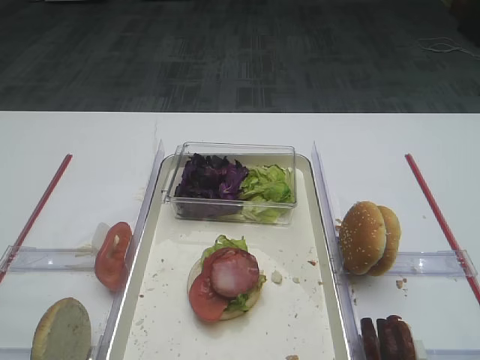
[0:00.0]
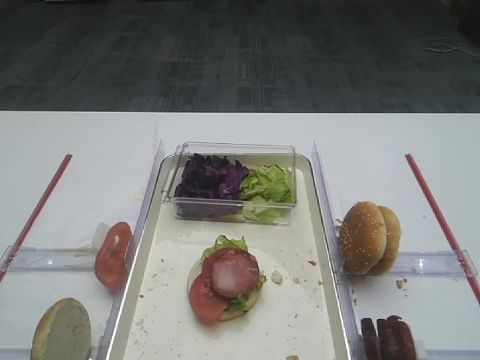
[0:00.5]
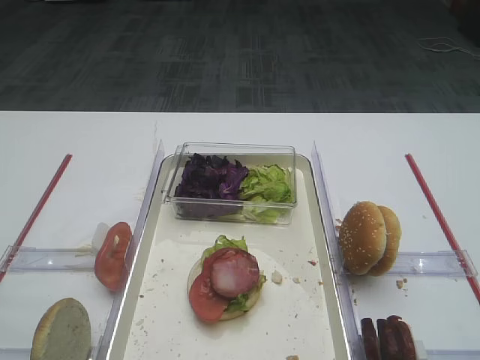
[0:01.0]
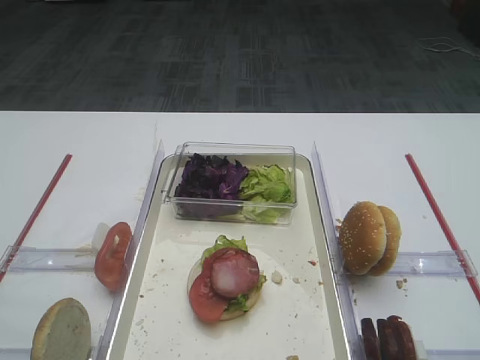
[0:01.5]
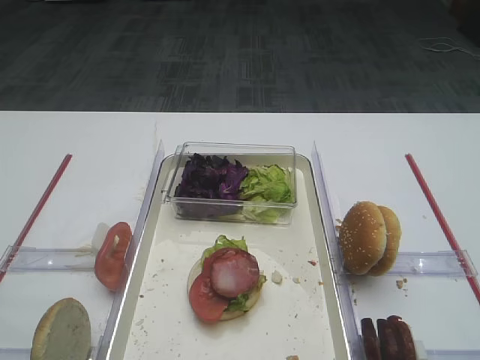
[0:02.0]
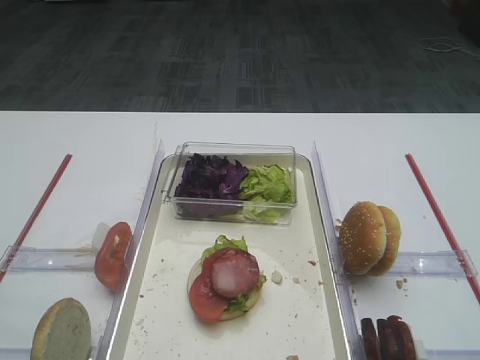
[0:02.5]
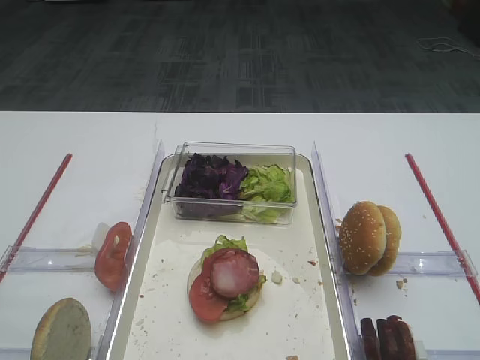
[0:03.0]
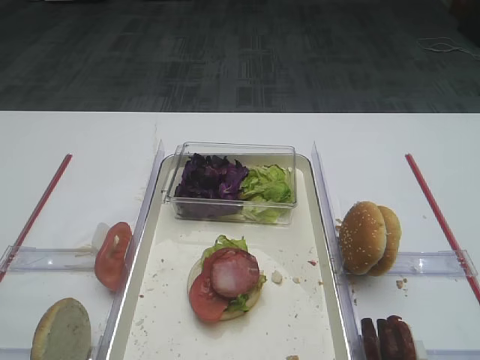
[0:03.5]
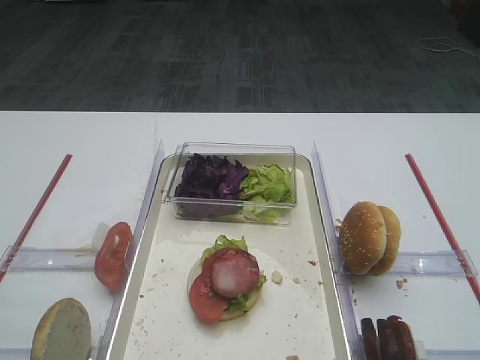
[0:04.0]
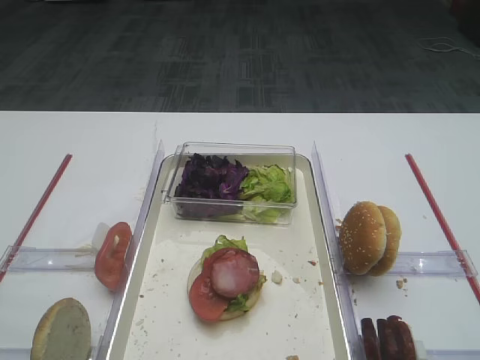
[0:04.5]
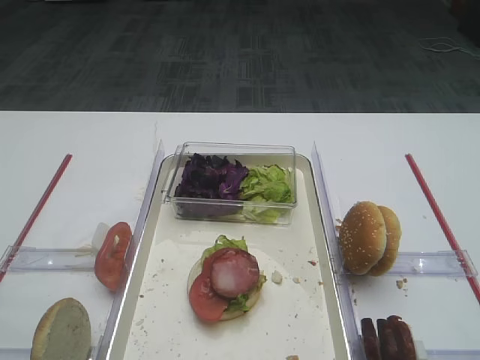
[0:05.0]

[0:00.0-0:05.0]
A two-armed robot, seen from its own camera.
0:00.0 to 0:05.0: Neither gripper changes place.
